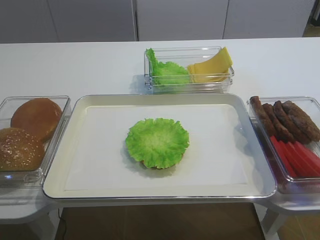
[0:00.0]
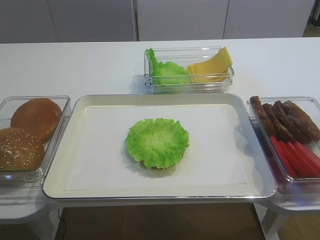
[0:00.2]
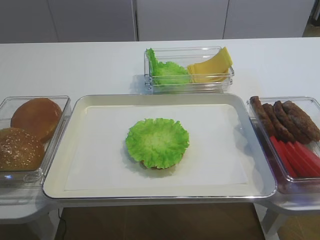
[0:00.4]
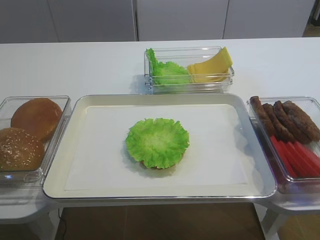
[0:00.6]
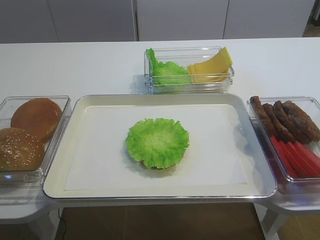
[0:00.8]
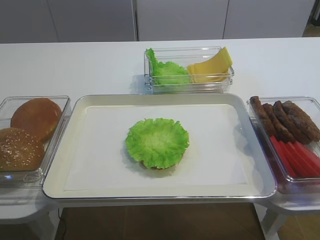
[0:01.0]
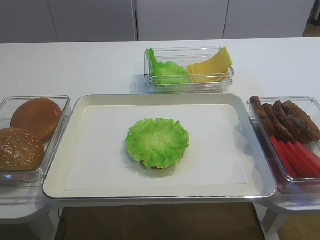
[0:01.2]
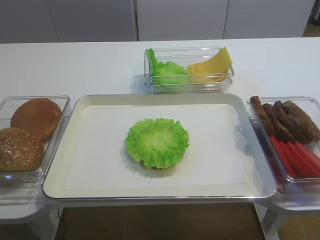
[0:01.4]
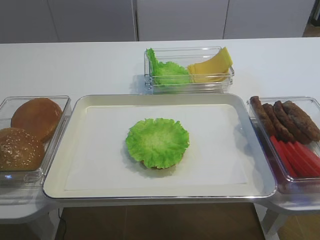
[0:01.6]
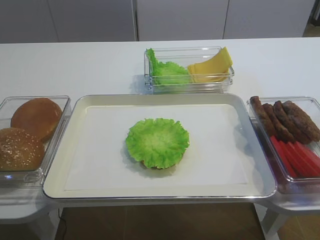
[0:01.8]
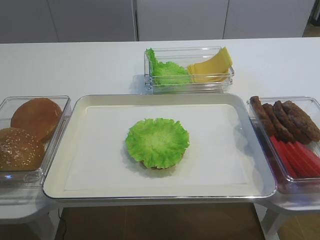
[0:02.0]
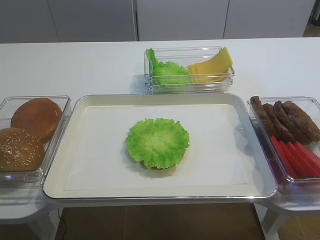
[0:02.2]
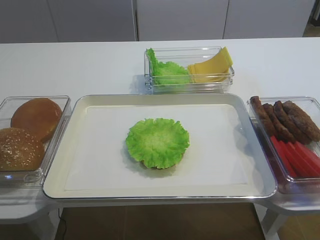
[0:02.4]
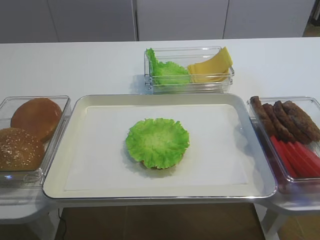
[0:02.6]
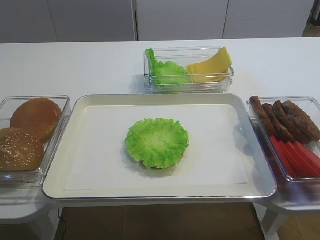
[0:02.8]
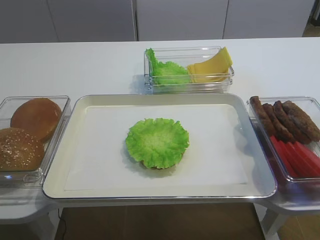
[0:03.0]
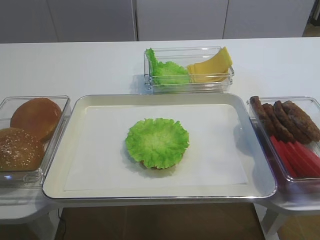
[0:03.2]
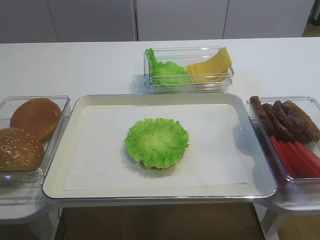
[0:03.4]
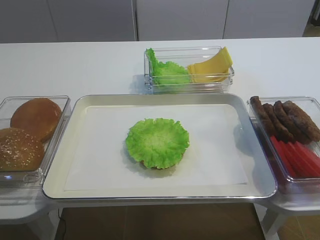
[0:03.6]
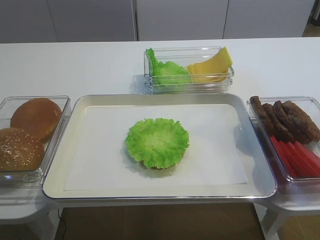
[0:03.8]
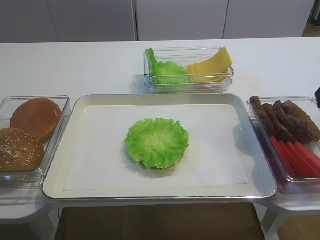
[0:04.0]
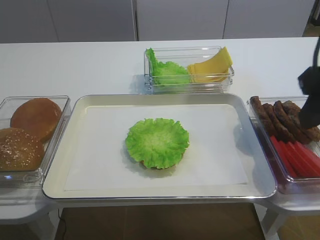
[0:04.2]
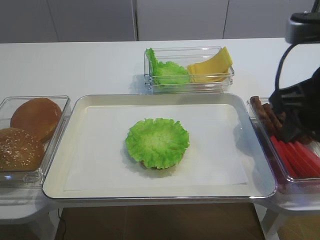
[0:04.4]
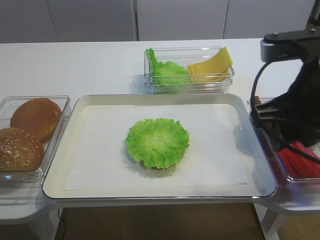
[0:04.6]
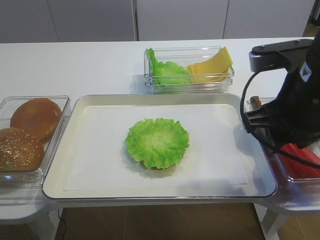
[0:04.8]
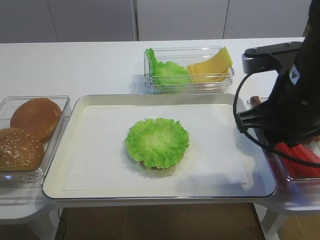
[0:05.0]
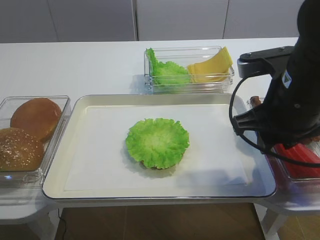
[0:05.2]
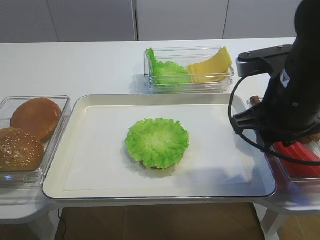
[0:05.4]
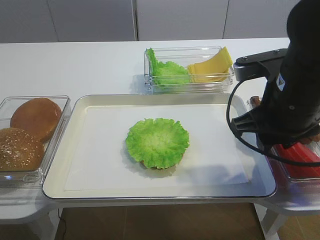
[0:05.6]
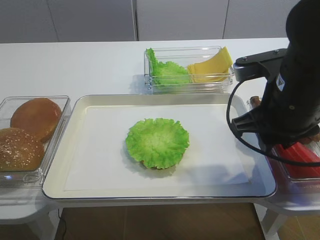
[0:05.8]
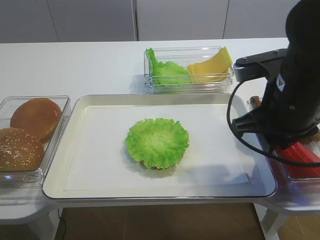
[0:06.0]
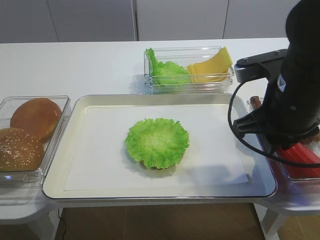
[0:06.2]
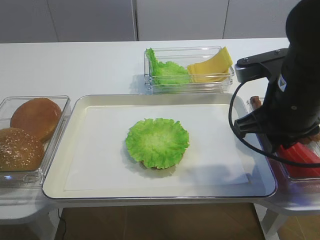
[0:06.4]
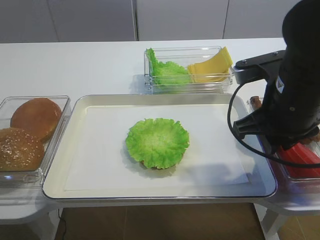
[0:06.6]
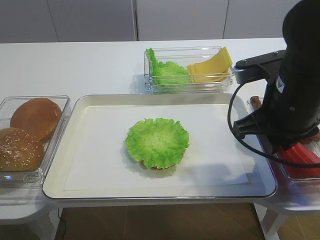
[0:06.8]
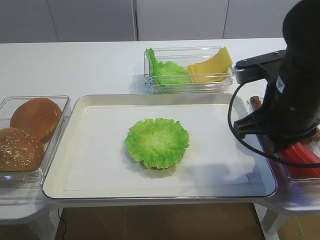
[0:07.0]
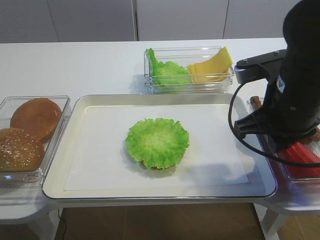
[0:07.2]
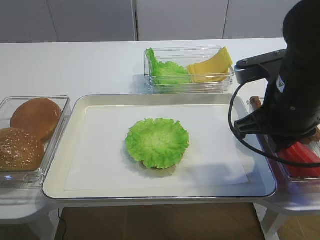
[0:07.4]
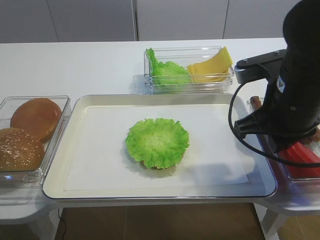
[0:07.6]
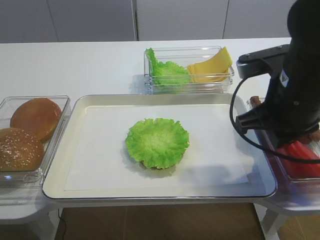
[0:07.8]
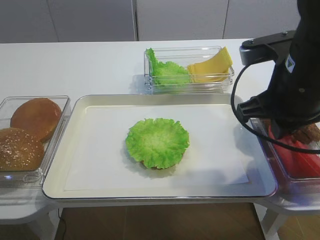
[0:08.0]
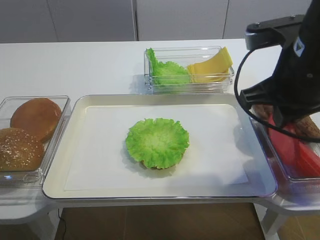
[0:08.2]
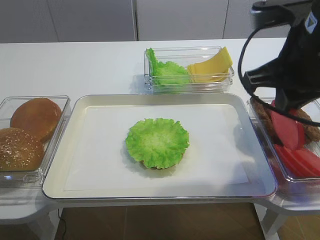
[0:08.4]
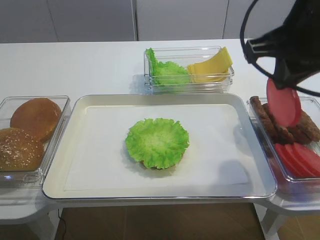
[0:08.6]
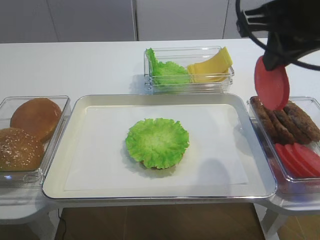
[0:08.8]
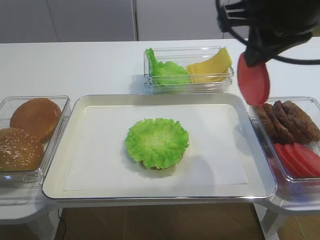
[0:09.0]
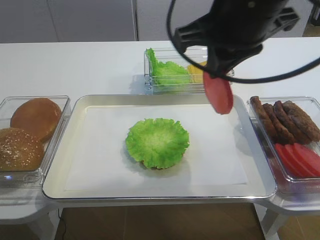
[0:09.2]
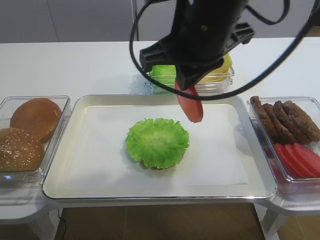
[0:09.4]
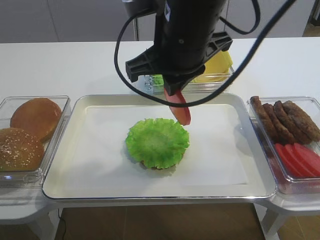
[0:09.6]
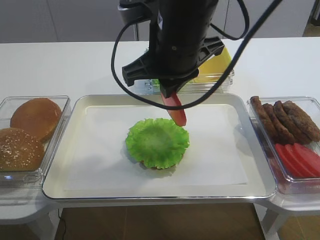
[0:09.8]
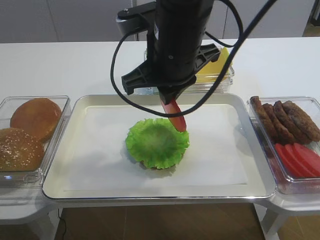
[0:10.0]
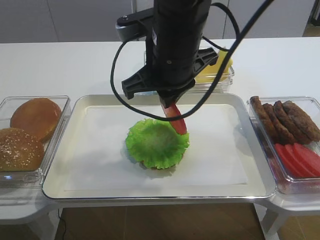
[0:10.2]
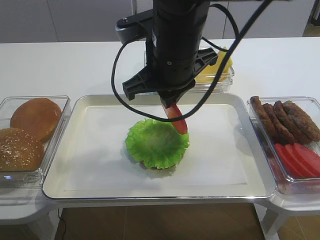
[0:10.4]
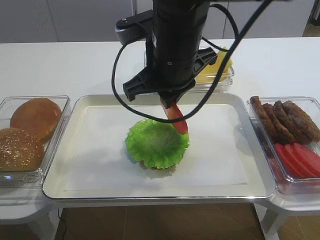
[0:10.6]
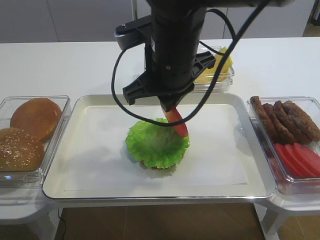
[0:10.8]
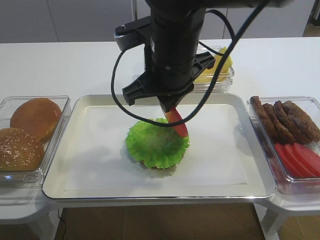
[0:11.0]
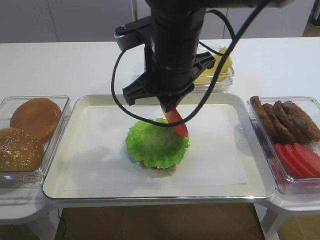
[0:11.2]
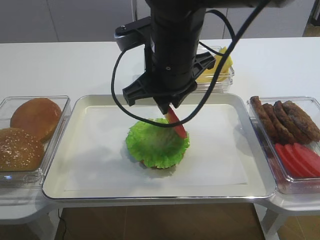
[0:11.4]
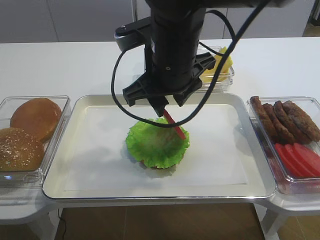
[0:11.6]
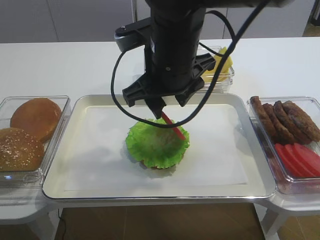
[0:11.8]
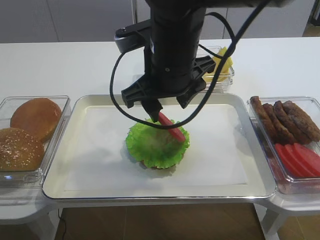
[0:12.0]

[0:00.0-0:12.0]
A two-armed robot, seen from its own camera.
Step, 0:00.0 to 0:08.2: Pick up the tomato slice with the right gripper.
0:01.6 to 0:03.0: The right gripper travels upward by approximately 5 cm.
0:03.0 to 0:04.4: The right gripper goes about 20 cm forward and to the left.
0:04.4 to 0:06.0: The right gripper is displaced downward by roughly 5 cm.
0:06.0 to 0:07.6: The two grippers keep their place.
0:07.6 to 0:09.0: The right gripper goes approximately 15 cm upward.
0:09.0 to 0:10.4: The right gripper is displaced to the left and downward by approximately 15 cm.
0:10.4 to 0:12.0: The right gripper opens.

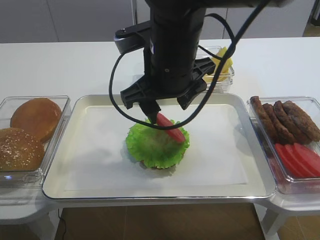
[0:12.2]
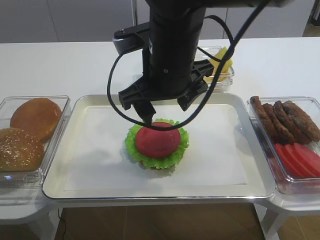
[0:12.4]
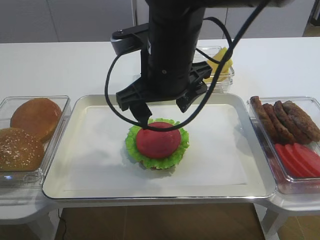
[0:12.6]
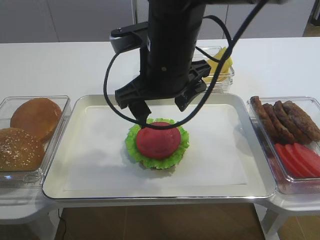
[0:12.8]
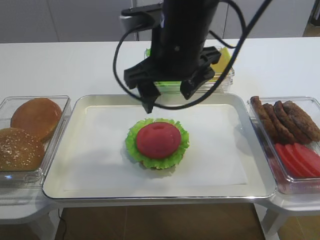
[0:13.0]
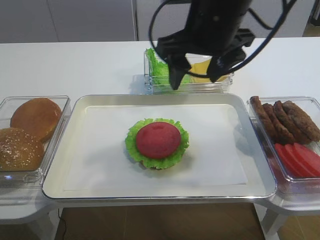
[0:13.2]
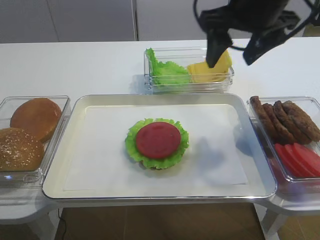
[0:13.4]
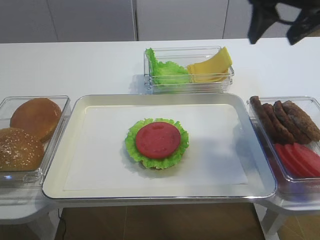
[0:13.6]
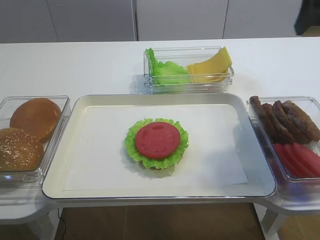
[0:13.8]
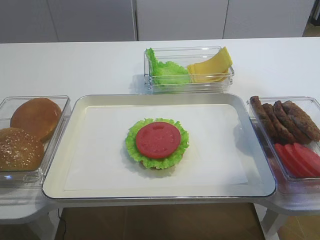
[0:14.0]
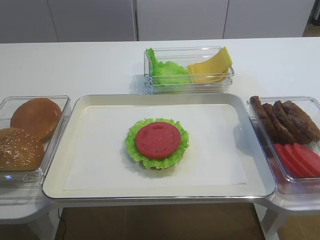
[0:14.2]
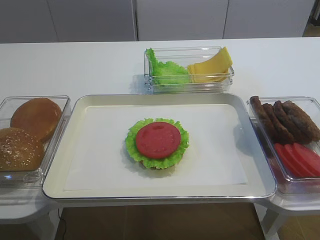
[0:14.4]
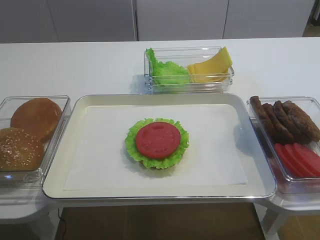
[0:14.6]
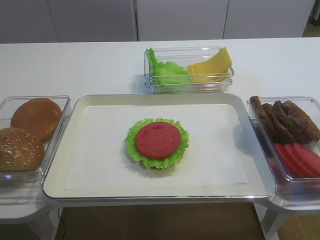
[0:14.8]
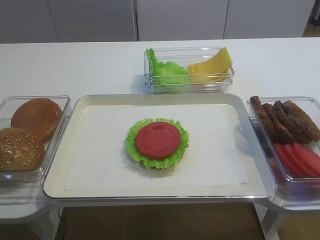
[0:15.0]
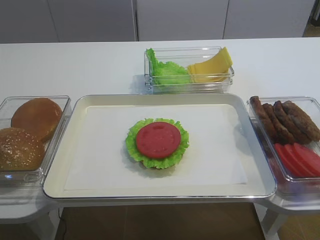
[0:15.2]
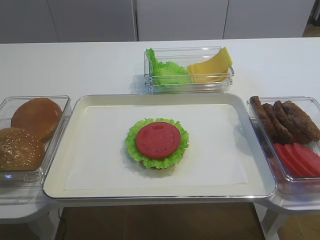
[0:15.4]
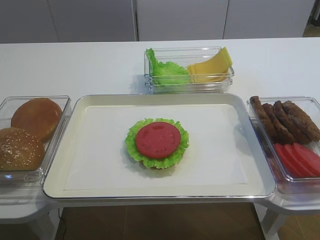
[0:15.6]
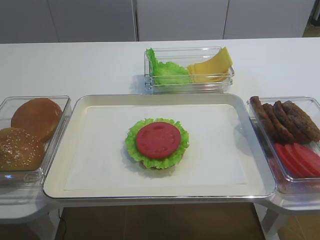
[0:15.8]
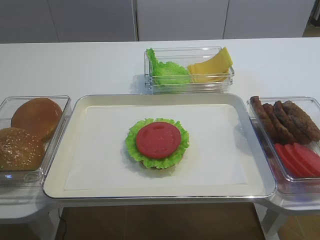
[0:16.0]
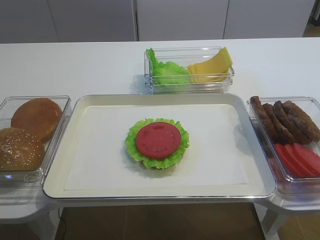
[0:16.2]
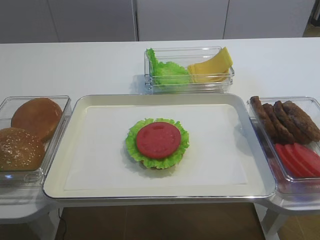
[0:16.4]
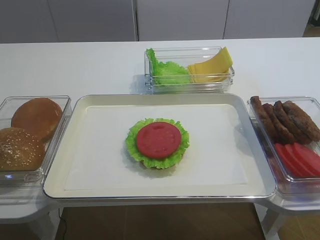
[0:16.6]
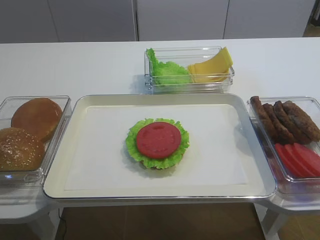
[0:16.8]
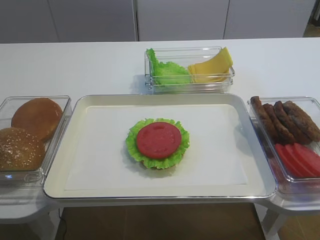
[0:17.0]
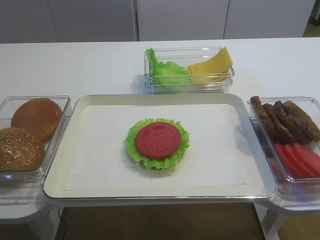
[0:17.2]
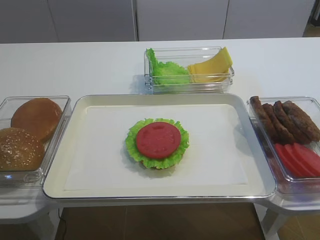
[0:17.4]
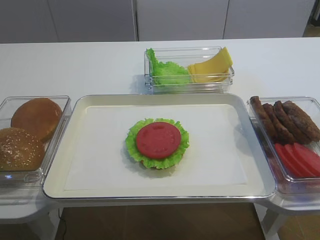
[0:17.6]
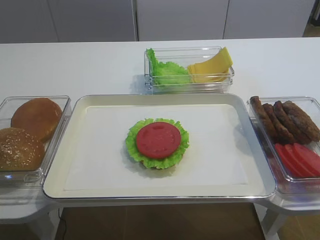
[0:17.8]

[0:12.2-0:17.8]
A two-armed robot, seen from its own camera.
0:12.2 to 0:13.6: The right gripper moves to the right and upward, some 20 cm.
0:13.6 to 0:15.0: The right gripper is displaced backward by roughly 30 cm.
0:16.4 to 0:17.8: The two grippers keep their place.

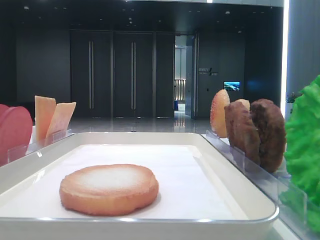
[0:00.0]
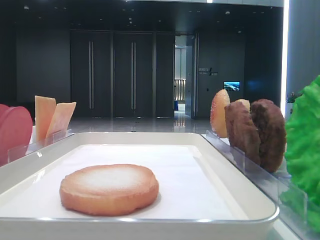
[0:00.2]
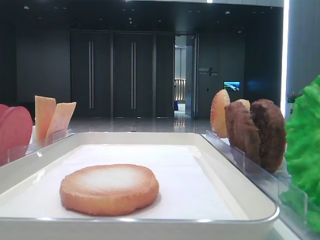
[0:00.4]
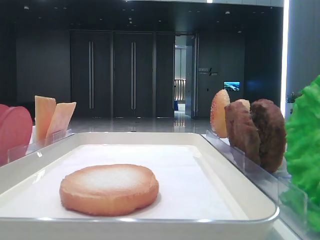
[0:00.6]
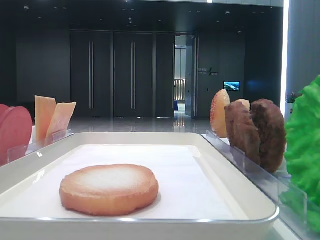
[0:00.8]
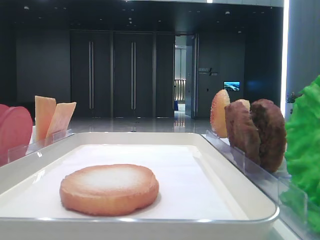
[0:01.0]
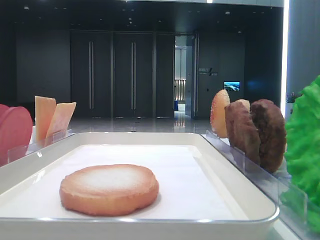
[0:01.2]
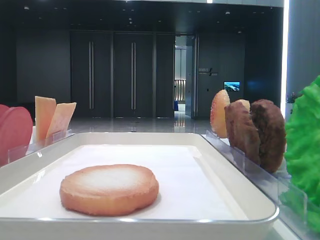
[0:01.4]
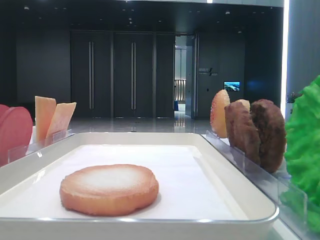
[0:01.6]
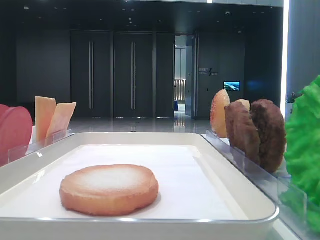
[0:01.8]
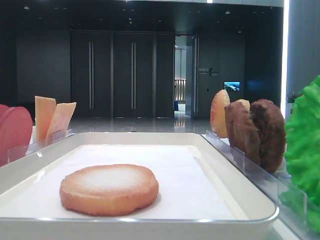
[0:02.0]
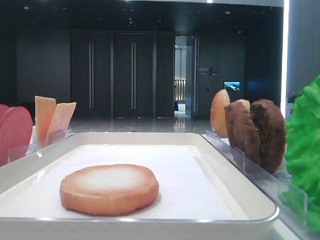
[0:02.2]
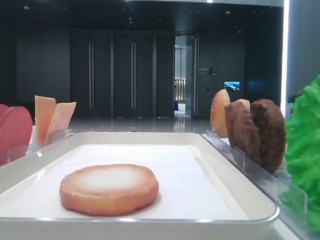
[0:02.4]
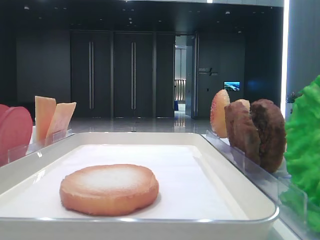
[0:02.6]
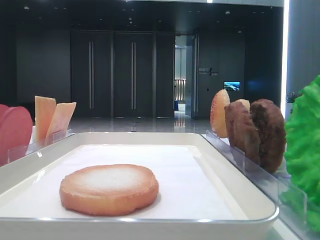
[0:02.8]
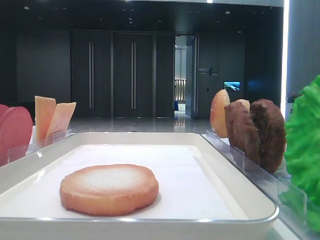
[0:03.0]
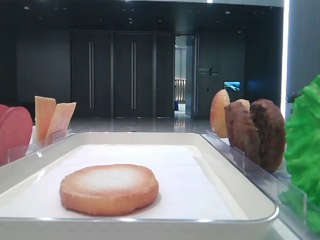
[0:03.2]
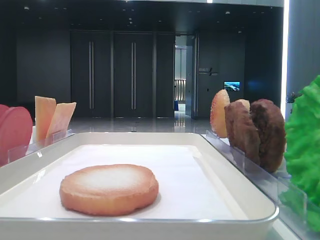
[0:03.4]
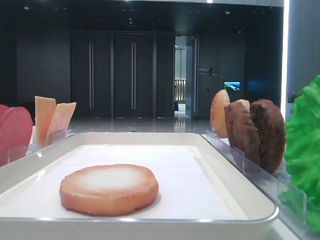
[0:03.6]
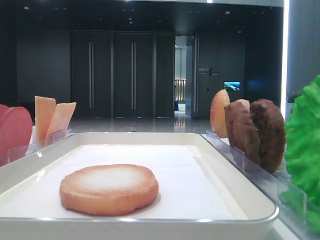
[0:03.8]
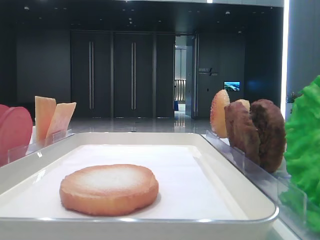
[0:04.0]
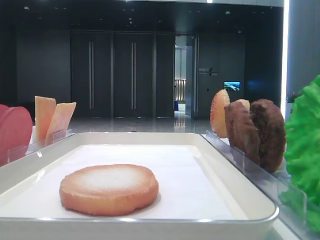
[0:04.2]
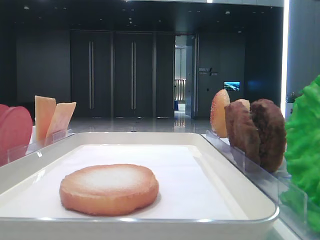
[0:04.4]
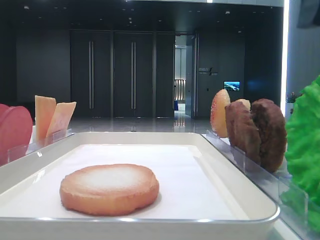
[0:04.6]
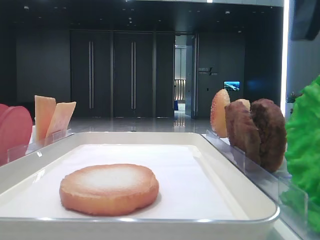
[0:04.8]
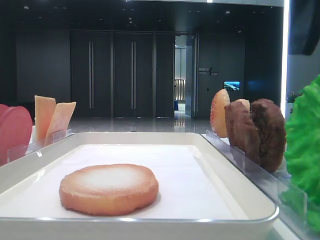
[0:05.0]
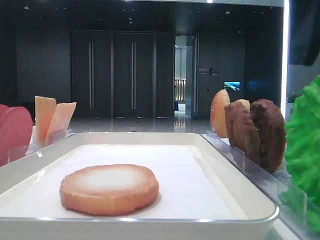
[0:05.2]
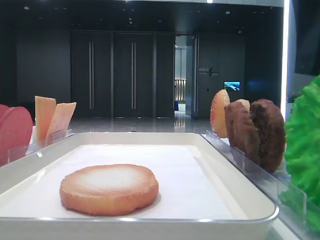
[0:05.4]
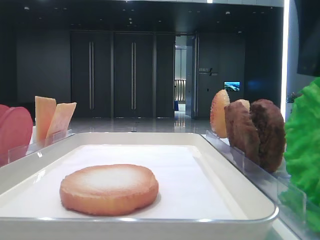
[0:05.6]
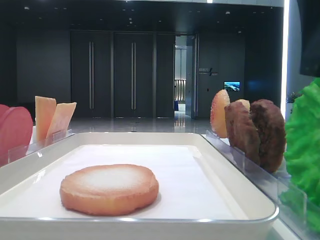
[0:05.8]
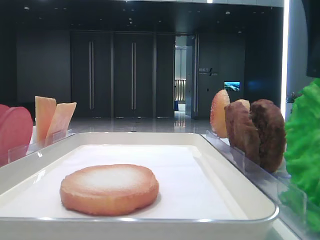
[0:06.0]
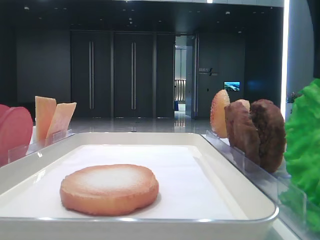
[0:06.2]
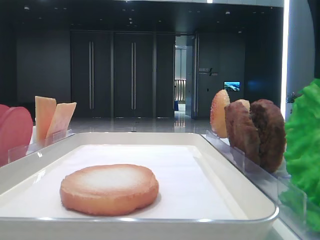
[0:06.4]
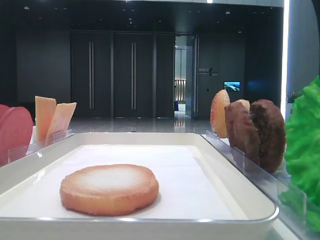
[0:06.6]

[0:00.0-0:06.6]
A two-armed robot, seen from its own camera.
0:03.2 to 0:05.0: The right gripper is displaced to the left by roughly 10 cm.
0:05.0 to 0:06.6: The right gripper closes up.
